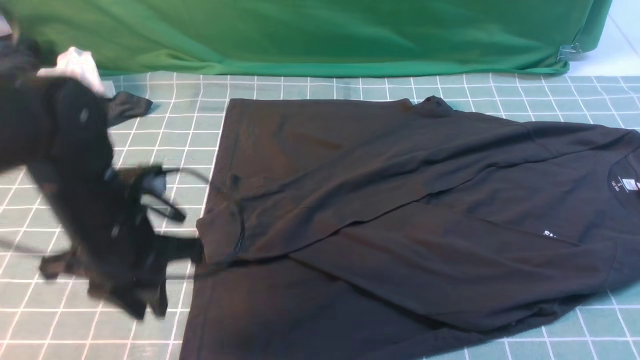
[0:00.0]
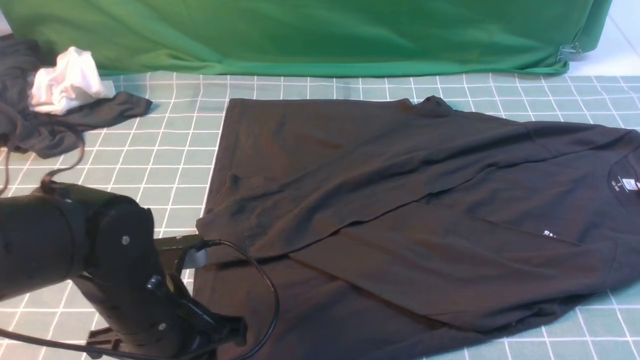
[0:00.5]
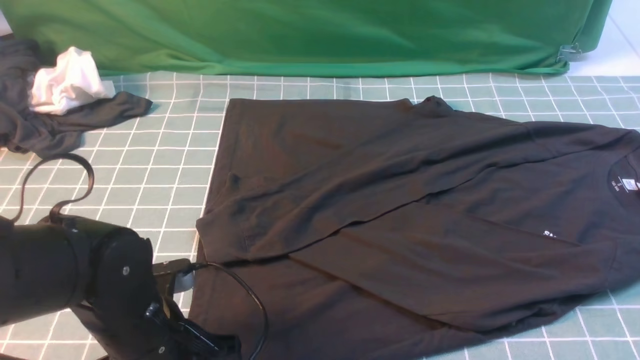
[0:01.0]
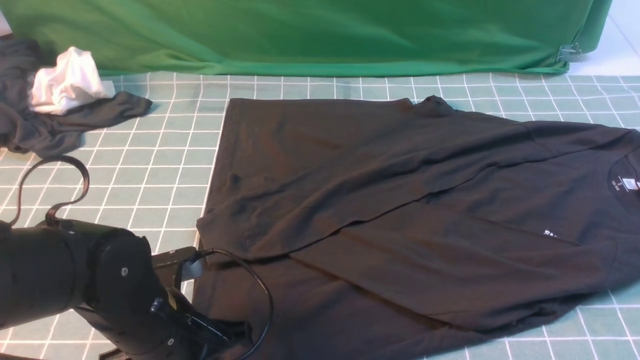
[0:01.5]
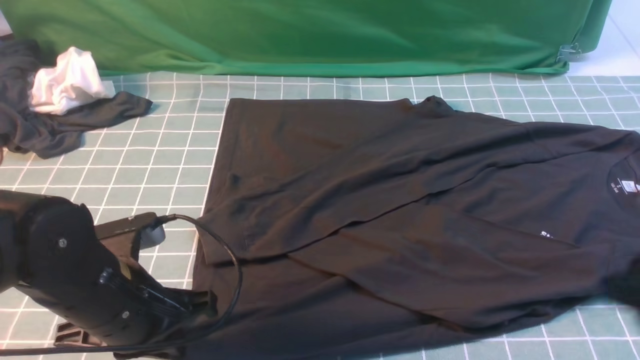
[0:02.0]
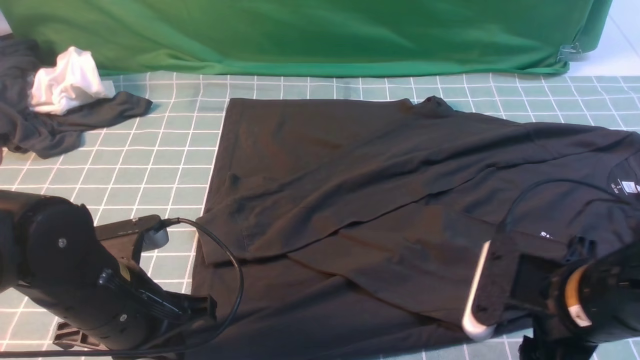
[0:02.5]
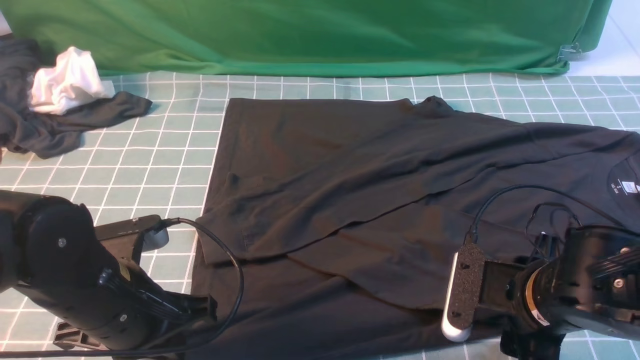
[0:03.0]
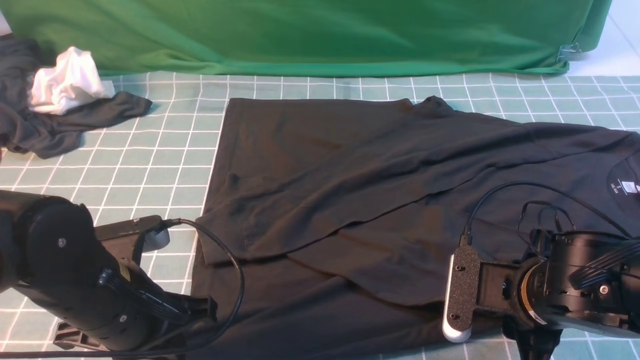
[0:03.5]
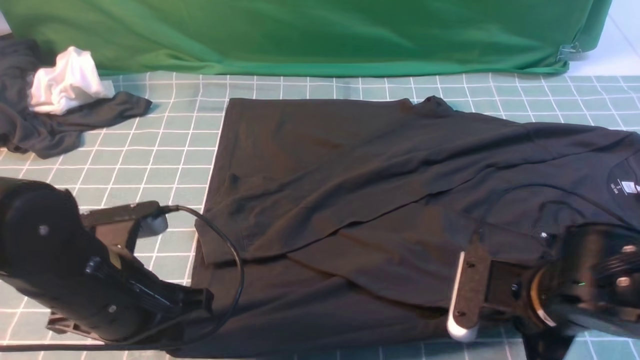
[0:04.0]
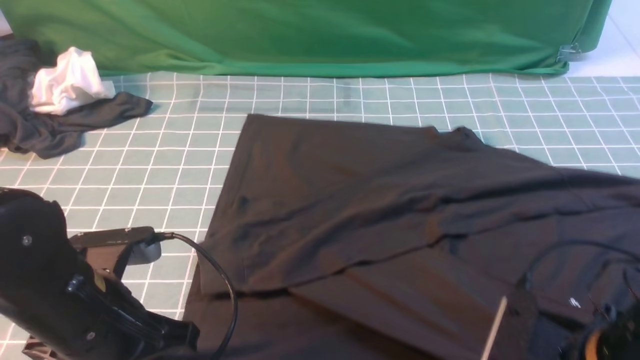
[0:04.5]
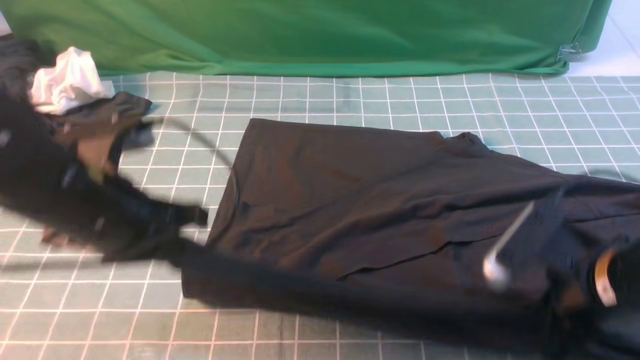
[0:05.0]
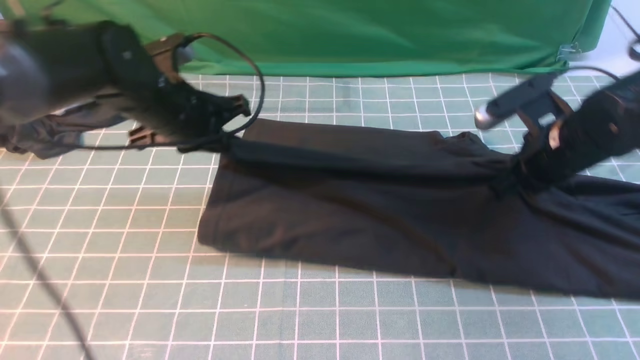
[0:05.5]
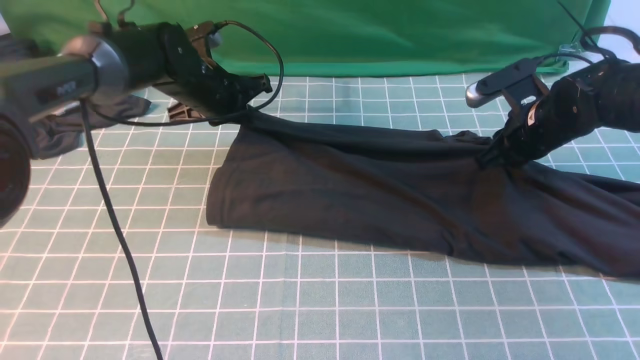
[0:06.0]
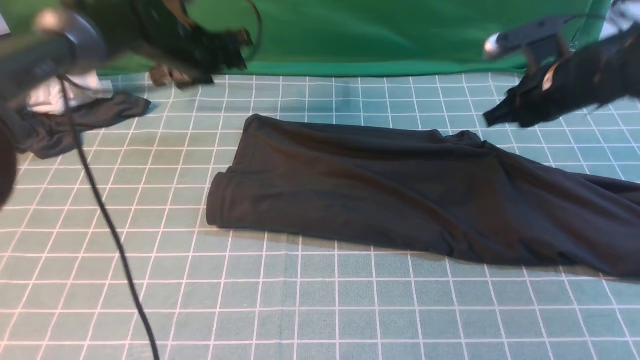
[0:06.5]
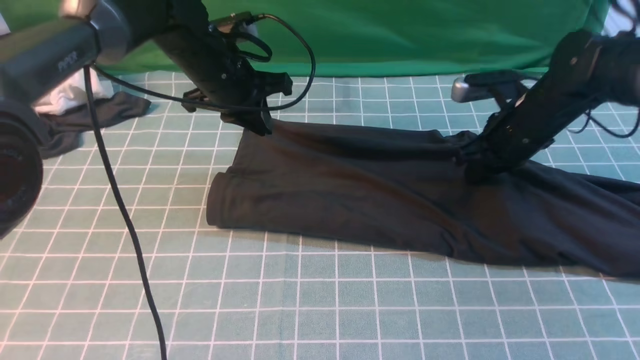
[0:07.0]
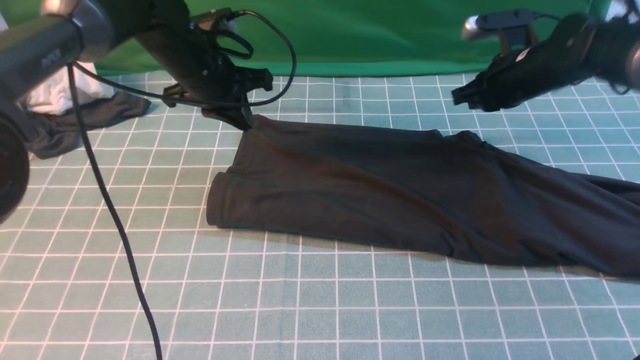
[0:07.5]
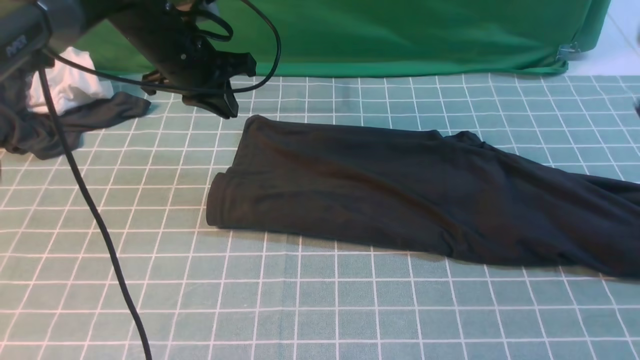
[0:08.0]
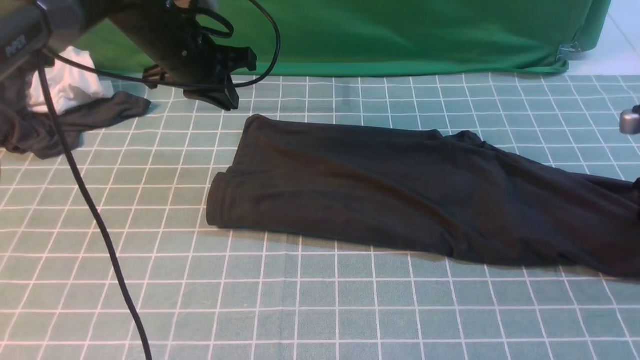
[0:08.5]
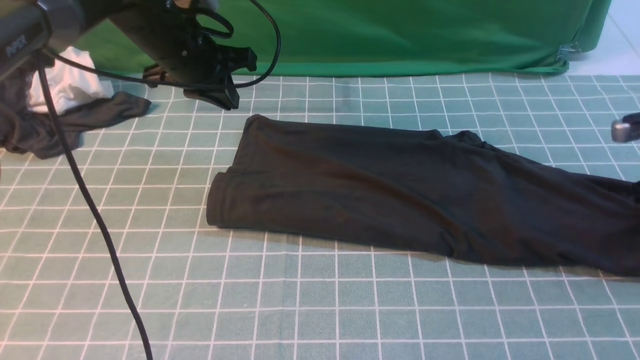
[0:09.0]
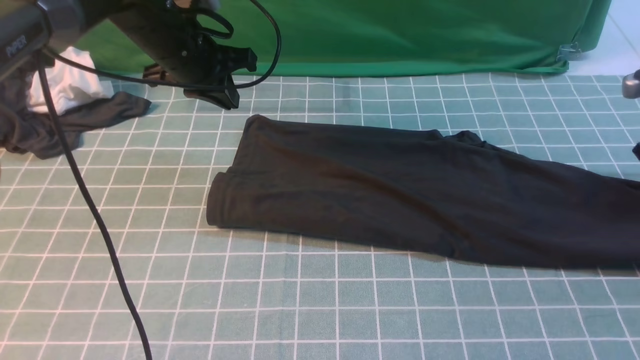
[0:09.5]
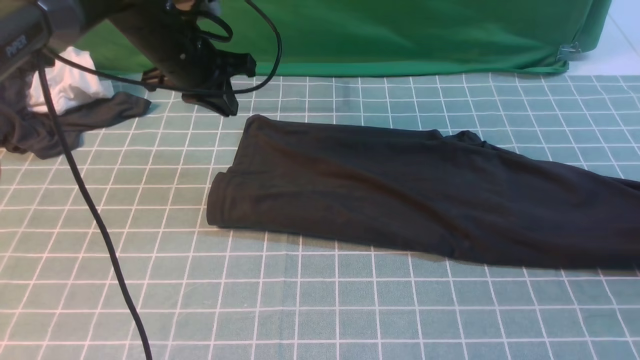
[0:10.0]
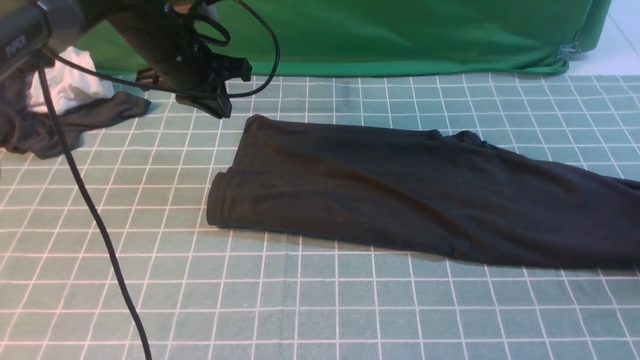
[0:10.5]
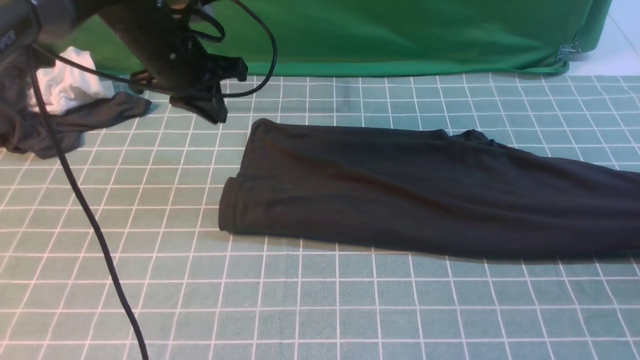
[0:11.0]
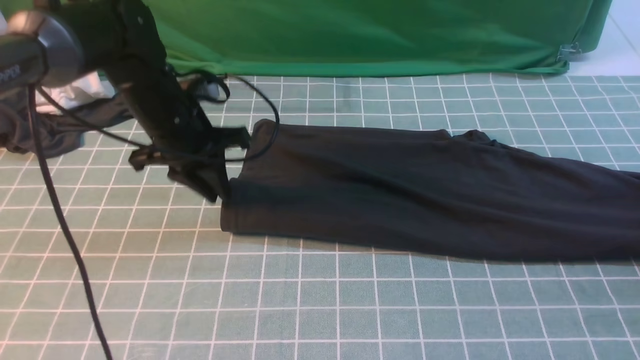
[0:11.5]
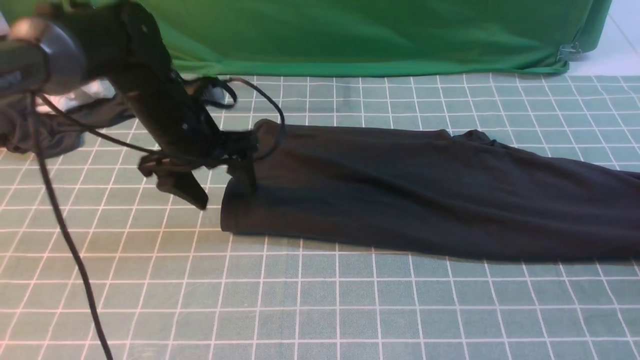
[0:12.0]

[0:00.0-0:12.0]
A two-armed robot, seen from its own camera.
Step, 0.0 to 4.0 s: use both arms simultaneously to clamp the lower edge of the clothing fabric.
Step, 4.5 to 6.5 s: use both arms to drag the lower edge of the fabric forward and fold it over the upper edge.
0.0 to 2.0 s: The right gripper goes about 10 cm downward and to the left. Meanwhile the left gripper shifts roughly 5 cm backward, and opens and closes again.
2.0 to 4.0 s: The right gripper heads downward and to the left, covering some 15 cm, and closes its fingers.
4.0 to 6.0 s: Both grippers move forward, approximately 25 cm.
6.0 to 8.0 s: The right gripper travels to the right and upward by about 15 cm. The left gripper moves upward, approximately 5 cm, and opens, then closes once more.
8.0 to 10.0 s: The right gripper is displaced to the right and downward by some 10 cm, and opens.
10.0 to 12.0 s: The right gripper moves some 5 cm, and closes and opens again, while the left gripper heads downward and backward, covering some 10 cm, and opens up.

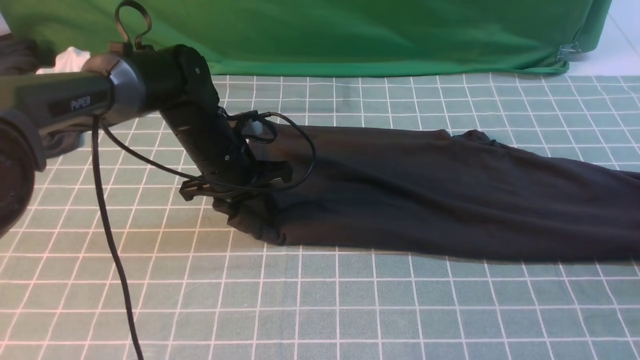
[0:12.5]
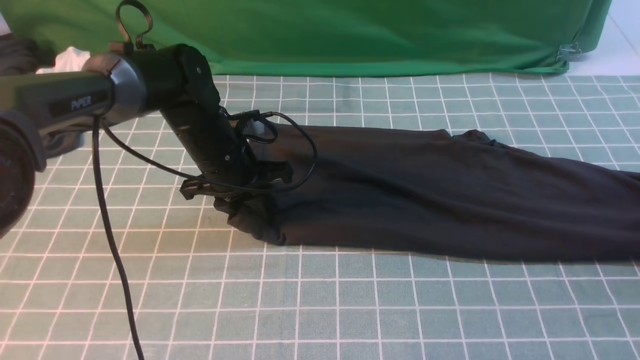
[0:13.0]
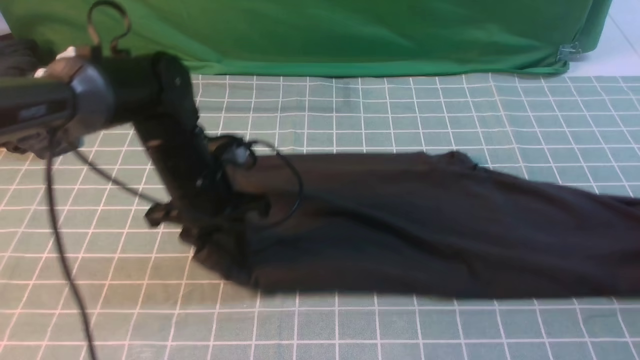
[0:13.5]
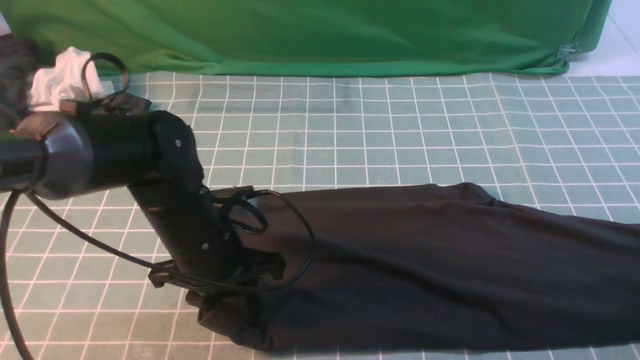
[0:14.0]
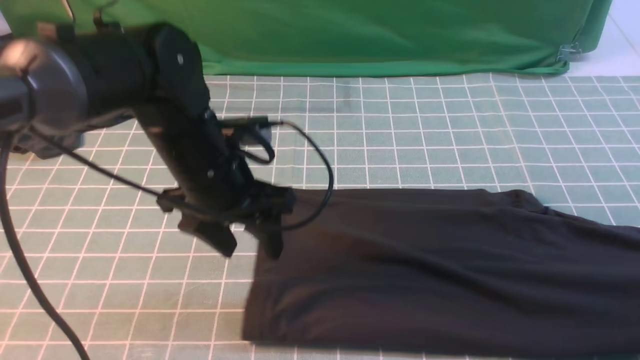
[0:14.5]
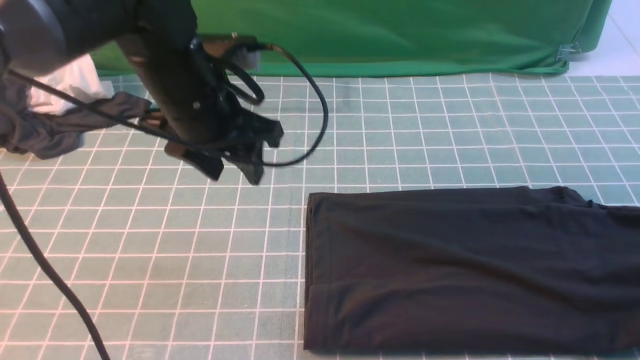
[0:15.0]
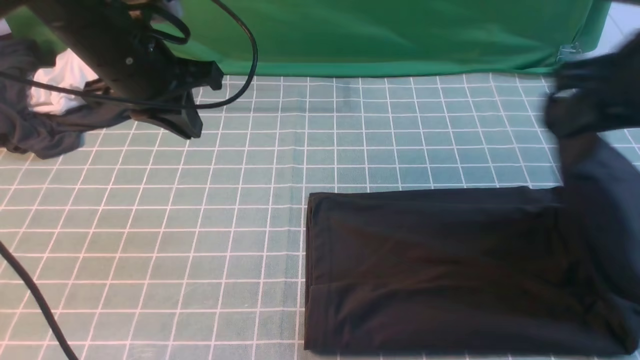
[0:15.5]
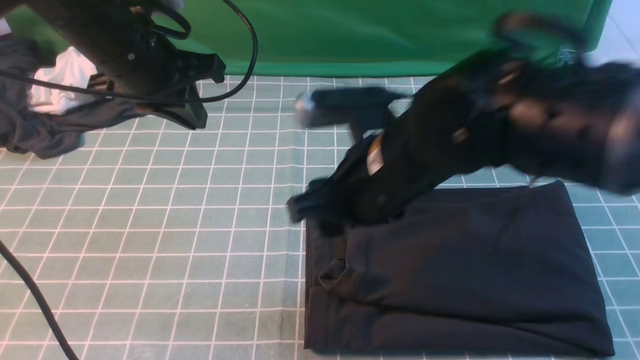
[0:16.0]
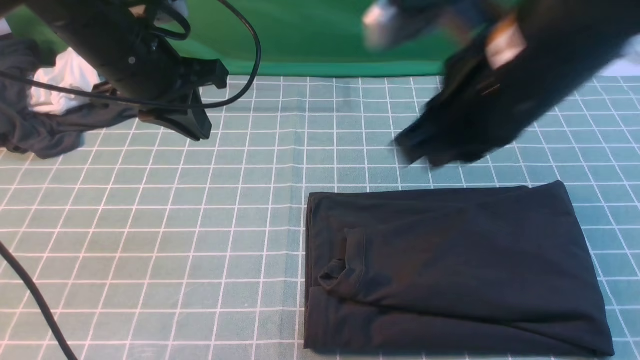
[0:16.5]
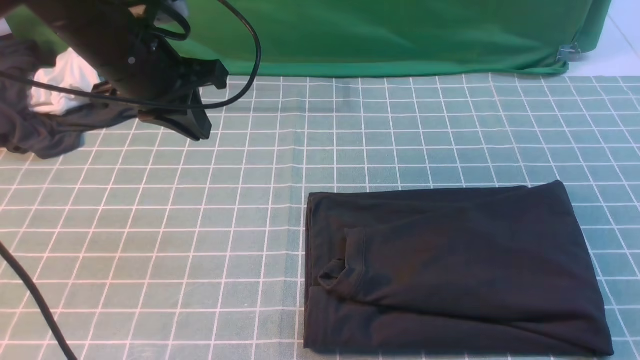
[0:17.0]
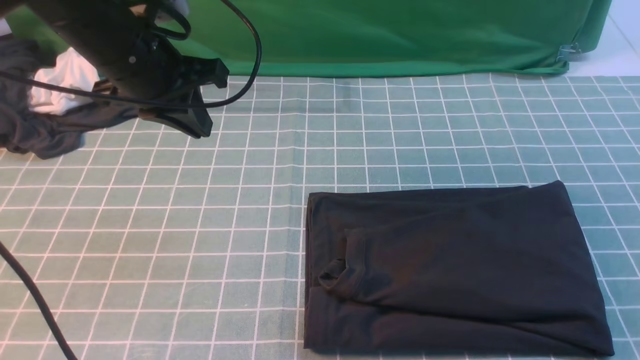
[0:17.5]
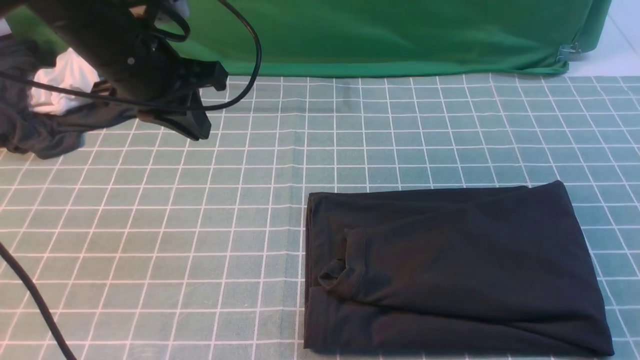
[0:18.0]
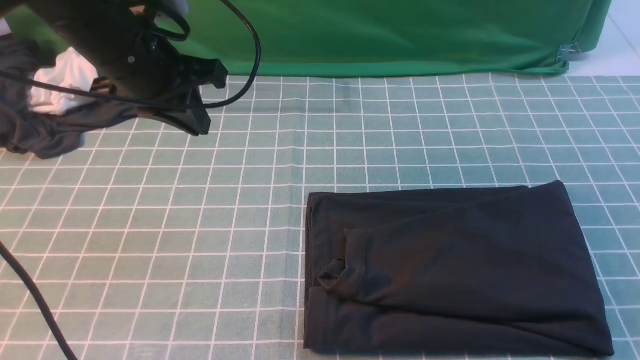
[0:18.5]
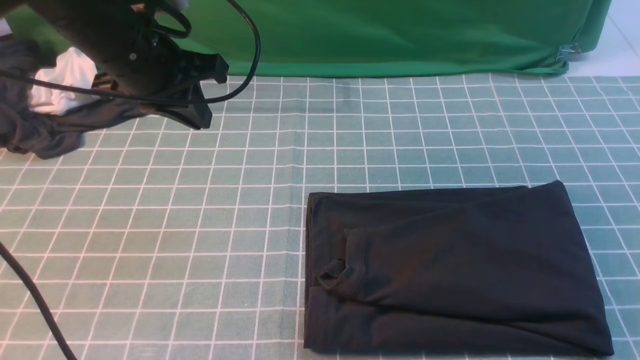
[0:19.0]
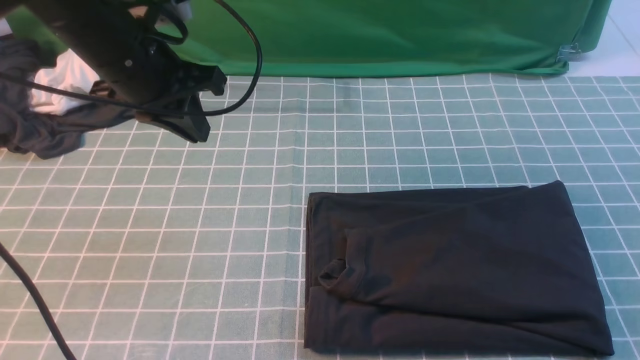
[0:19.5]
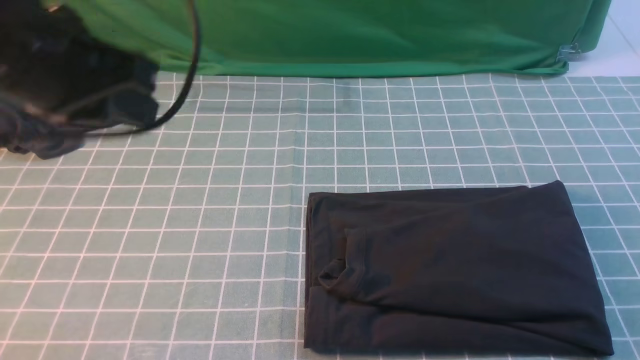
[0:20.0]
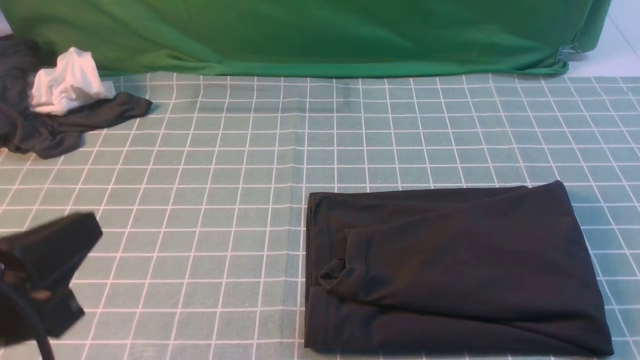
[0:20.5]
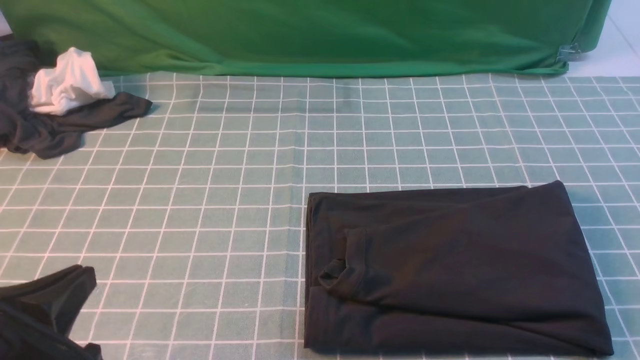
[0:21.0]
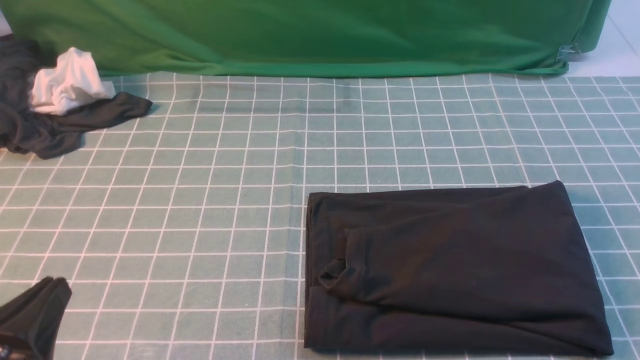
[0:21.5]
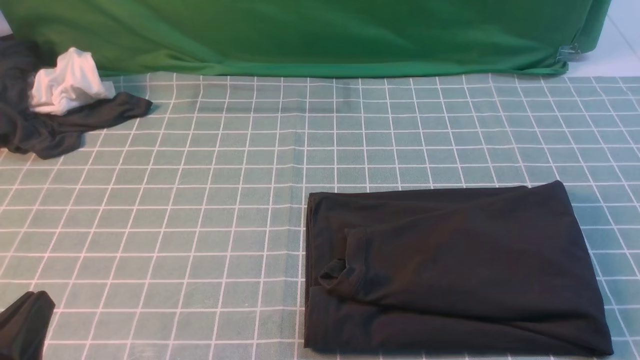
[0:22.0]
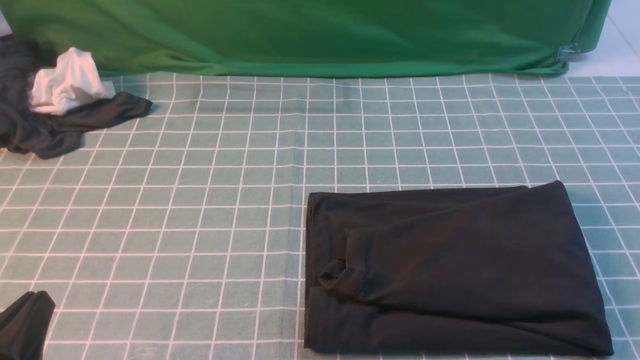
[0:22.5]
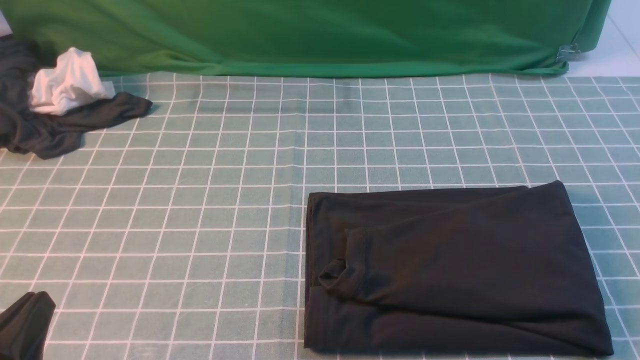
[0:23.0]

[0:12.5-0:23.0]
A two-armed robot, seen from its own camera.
Step, 12.5 to 14.5 s: use the right arm to clamp the right edge of the fabric.
Step, 15.0 to 16.5 s: use the right arm to drag the right edge of the fabric to the left and folds it over the left edge.
12.5 to 14.5 s: The two grippers go some 10 cm backward and upward. The left gripper opens its fingers. The right gripper closes.
14.5 to 16.5 s: The right gripper heads to the left and upward, covering some 40 cm, and opens, then closes once more. Meanwhile the left gripper travels upward, to the left and forward by approximately 10 cm, and closes its fingers.
16.5 to 19.0 s: The right gripper moves to the right, downward and backward, approximately 30 cm.
19.0 to 21.0 s: The left gripper shifts about 30 cm backward.
21.0 to 23.0 s: The left gripper moves roughly 5 cm.
